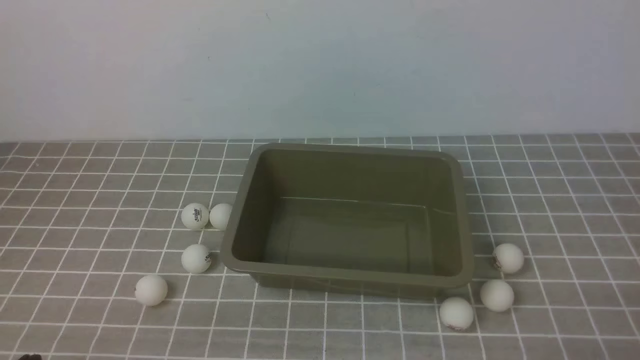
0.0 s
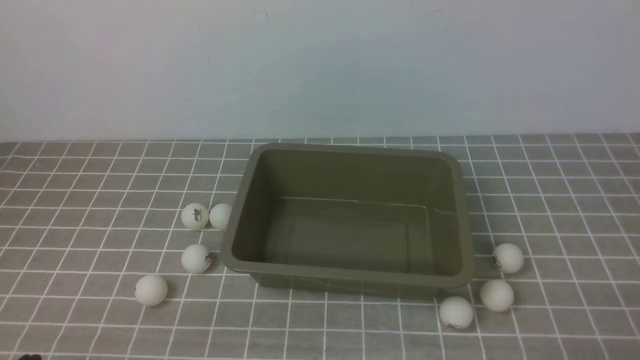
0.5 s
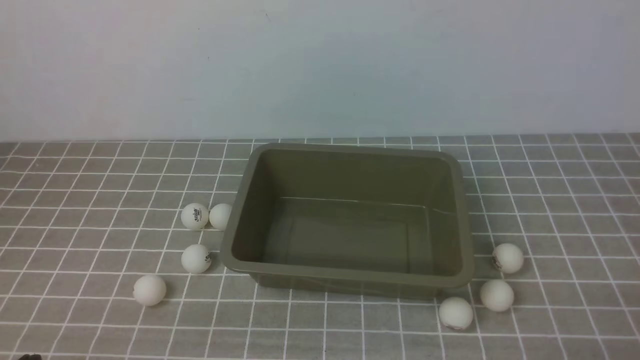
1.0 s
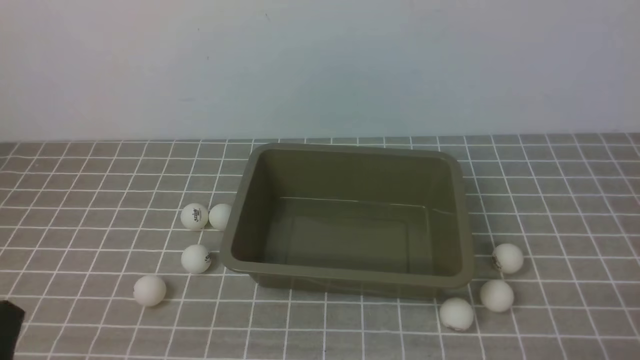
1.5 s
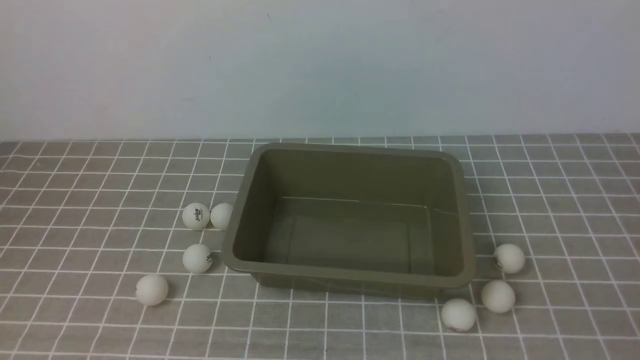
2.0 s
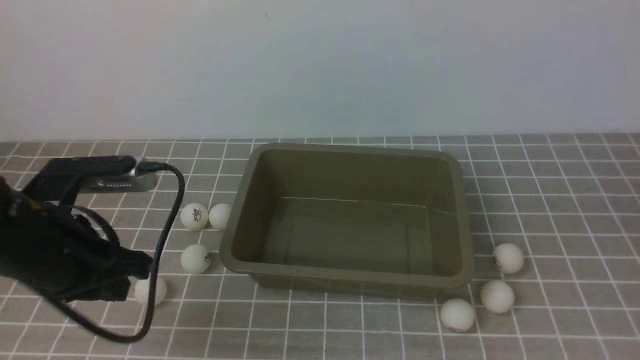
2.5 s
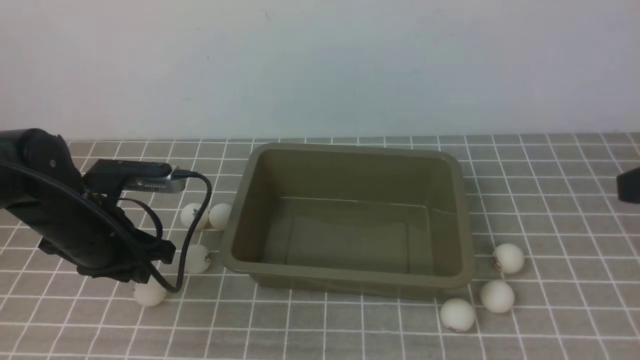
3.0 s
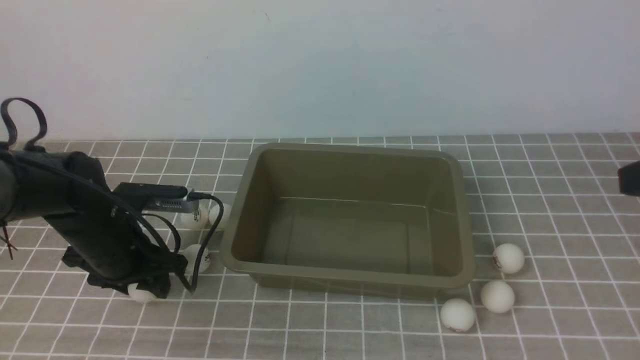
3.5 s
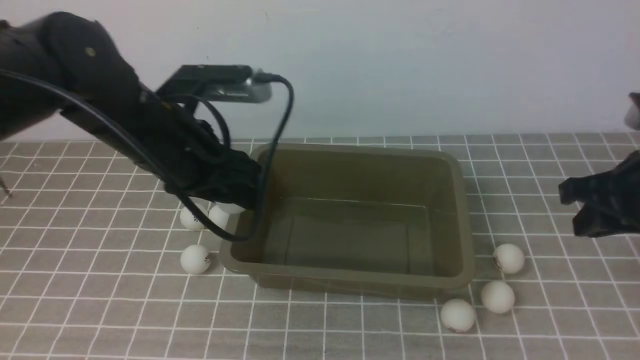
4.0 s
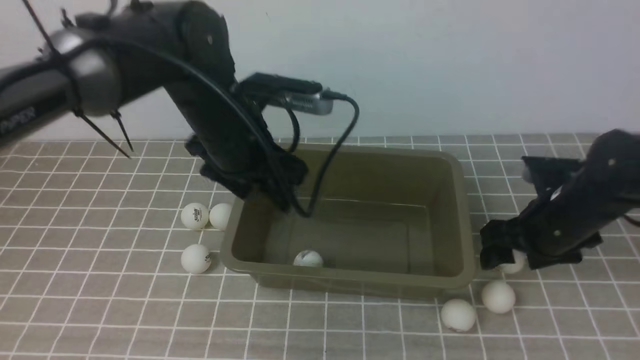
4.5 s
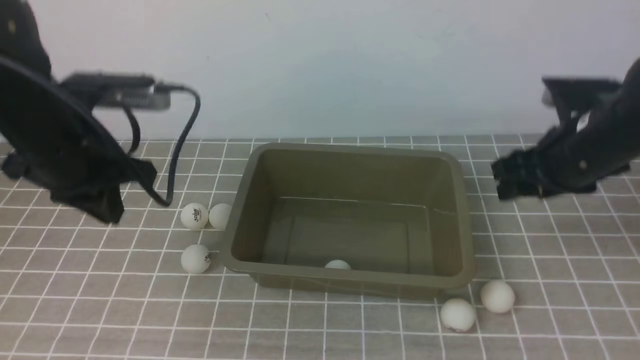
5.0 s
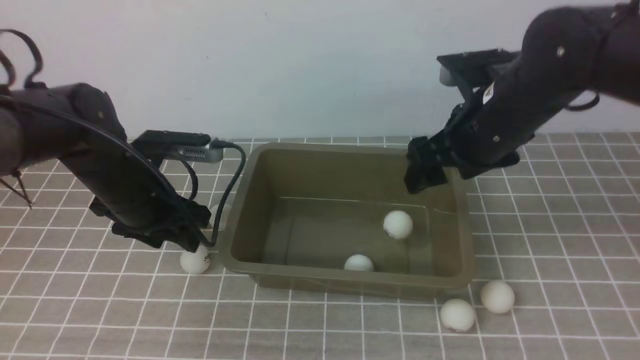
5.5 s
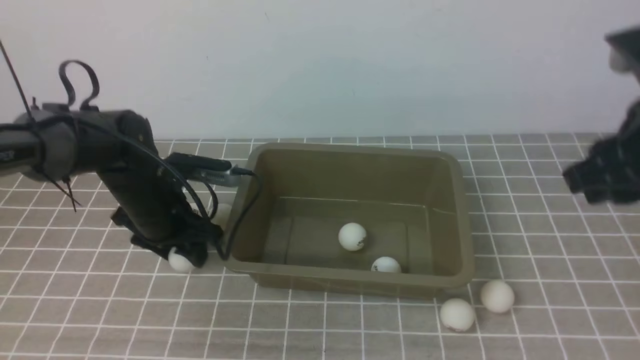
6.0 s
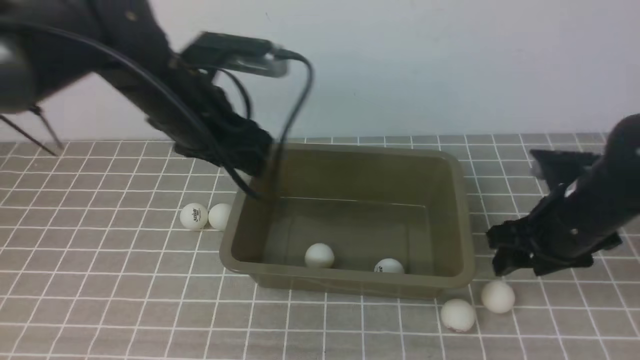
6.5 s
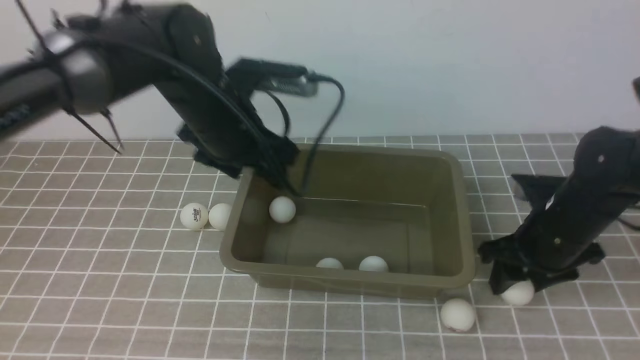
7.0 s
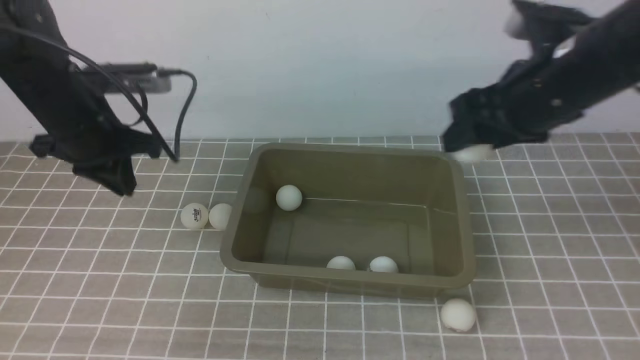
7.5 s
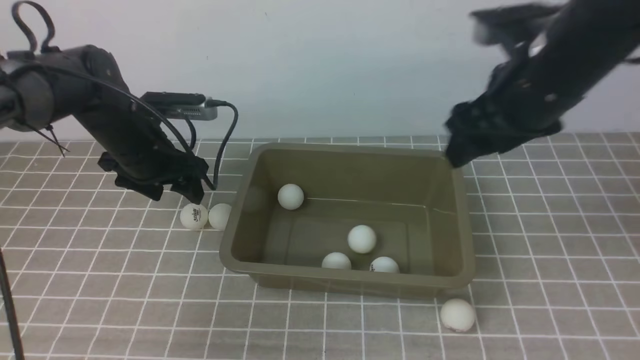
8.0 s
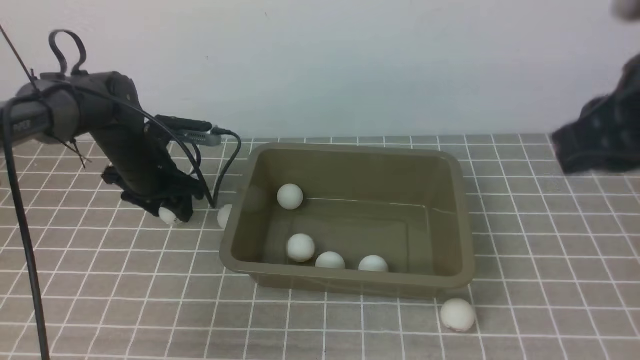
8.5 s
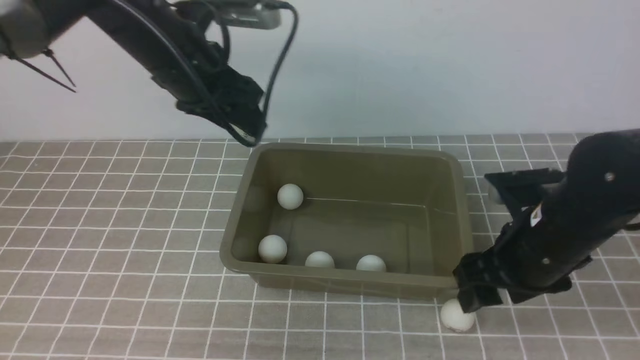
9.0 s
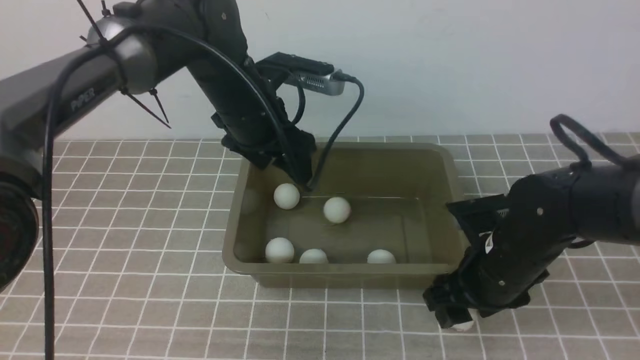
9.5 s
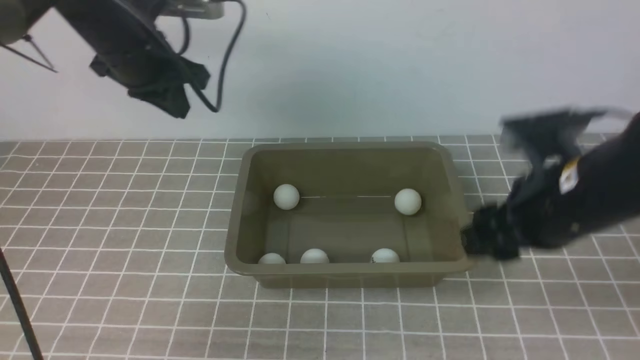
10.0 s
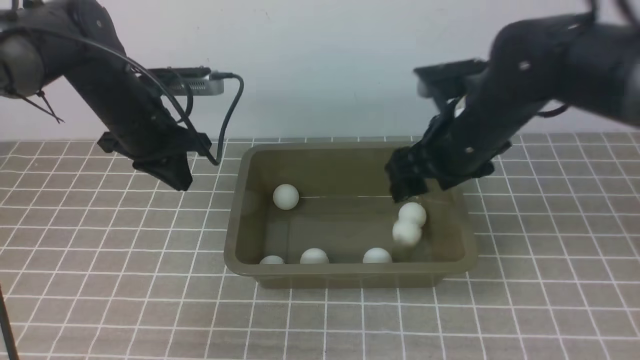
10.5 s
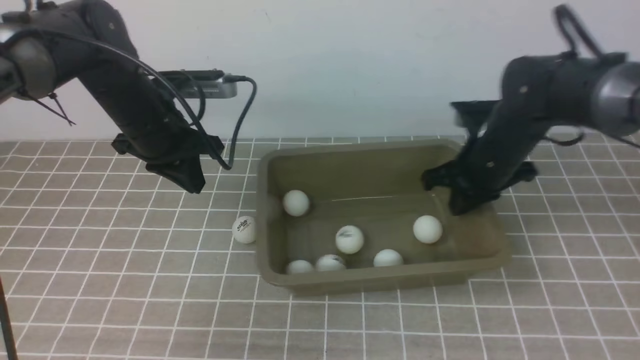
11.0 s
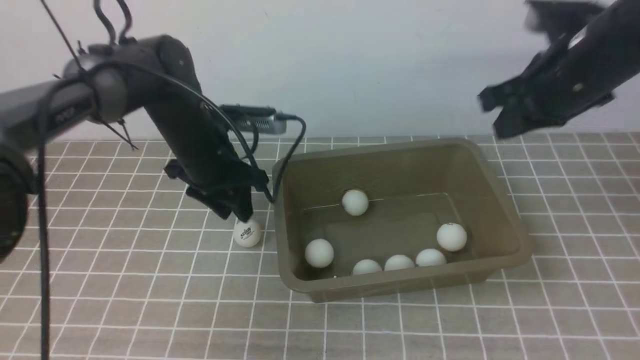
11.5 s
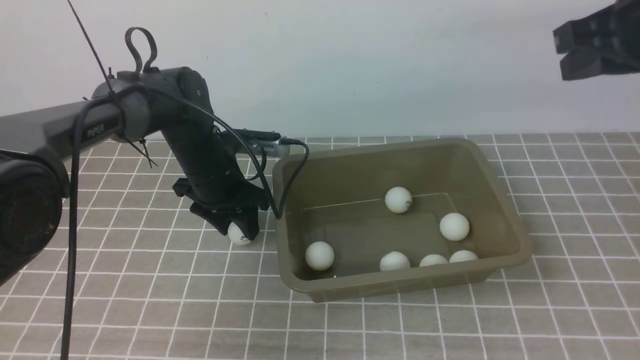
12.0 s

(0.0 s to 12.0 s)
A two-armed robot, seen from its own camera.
Step, 0.0 s - 3.5 s: use the left arm to clamp the table tennis ball closest to it.
Step, 5.0 s - 5.5 s: use the right arm to put the table tennis ball into the box.
Step, 8.0 s - 8.5 s: use the left arm to clamp the table tennis ball closest to it.
Step, 10.0 s - 10.5 s: use the right arm to put the table tennis ball into the box.
2.0 s - 4.0 s: The left gripper shifts approximately 25 cm forward and to the right, and opens up. Meanwhile the right gripper shifts approximately 20 cm forward.
4.0 s - 6.0 s: The right gripper reaches some 10 cm downward, then returns, and opens, then closes once more. Meanwhile the left gripper travels downward and to the left by some 10 cm, and closes and opens again.
6.0 s - 8.0 s: The right gripper moves to the left, roughly 5 cm, and reaches roughly 15 cm downward, then returns. The left gripper heads forward, covering approximately 5 cm, goes to the right and returns, approximately 5 cm each way, and closes, then reopens.
8.0 s - 10.0 s: The right gripper is displaced downward by roughly 10 cm, and closes, then reopens. Meanwhile the left gripper heads upward, covering roughly 10 cm, moves about 15 cm to the right and comes back, and closes.
10.0 s - 12.0 s: The left gripper travels downward by about 15 cm, and opens. Meanwhile the right gripper is displaced upward and to the right by approximately 15 cm, and closes.

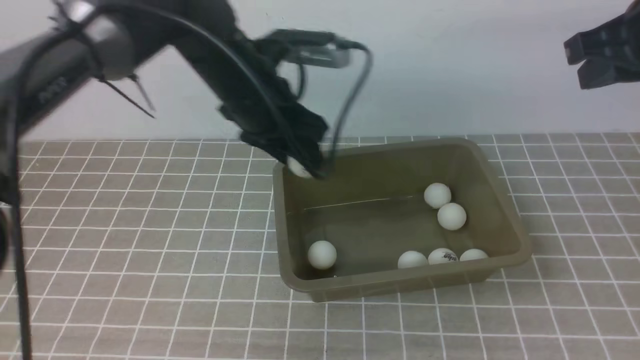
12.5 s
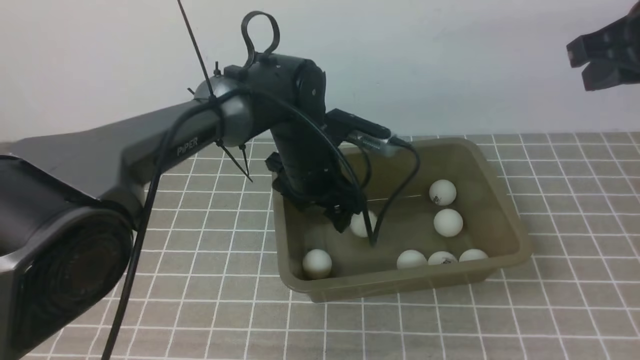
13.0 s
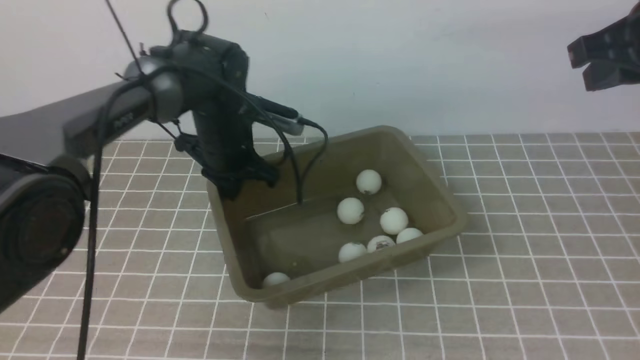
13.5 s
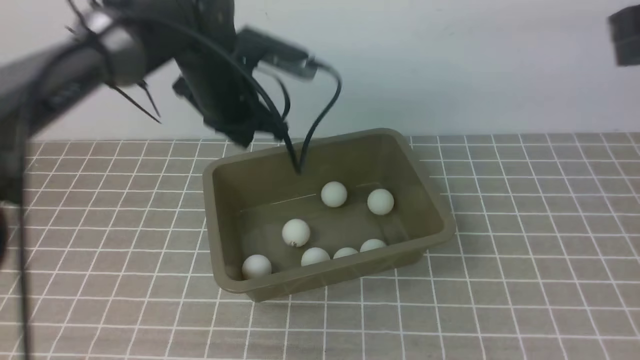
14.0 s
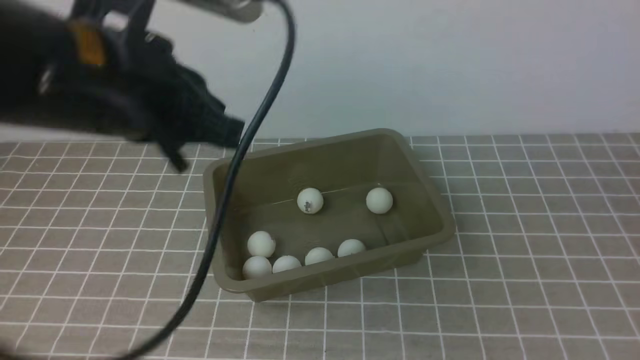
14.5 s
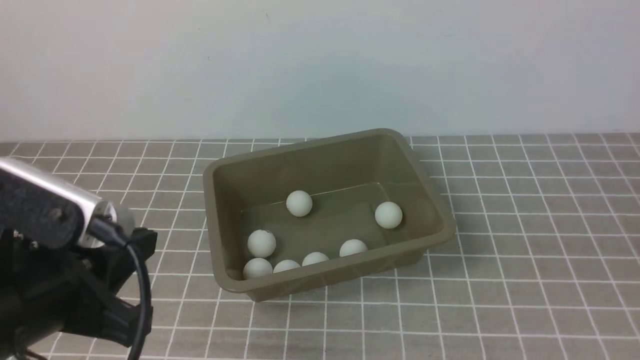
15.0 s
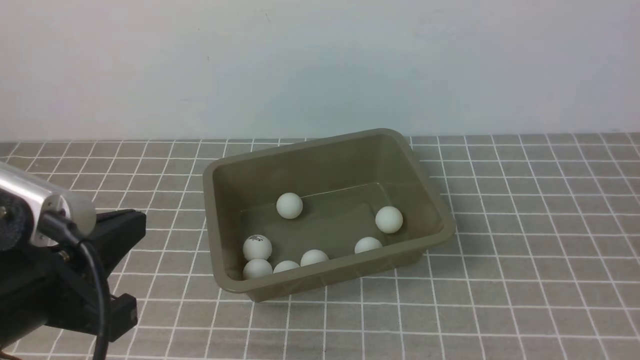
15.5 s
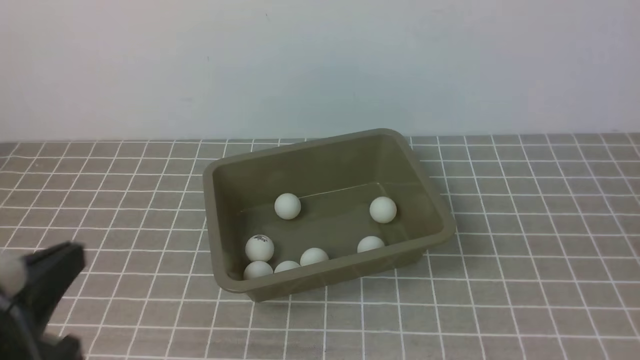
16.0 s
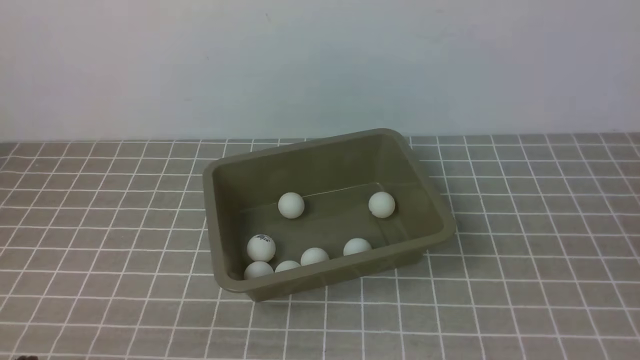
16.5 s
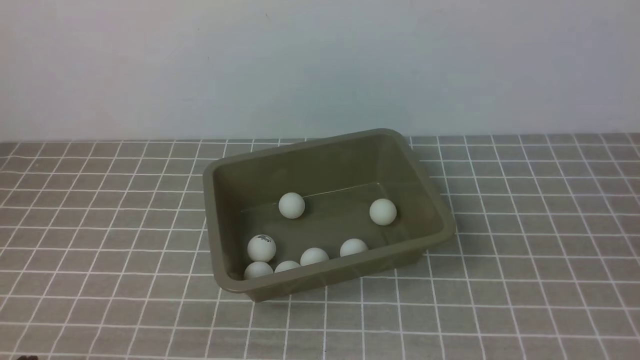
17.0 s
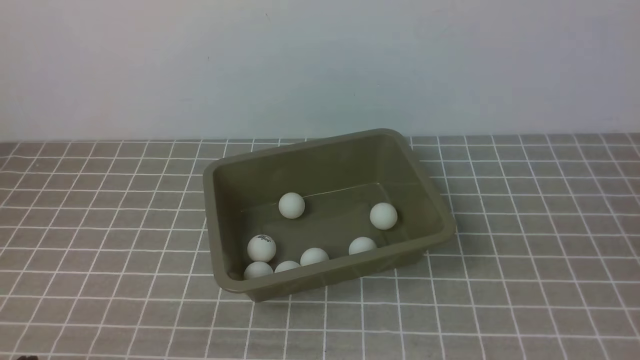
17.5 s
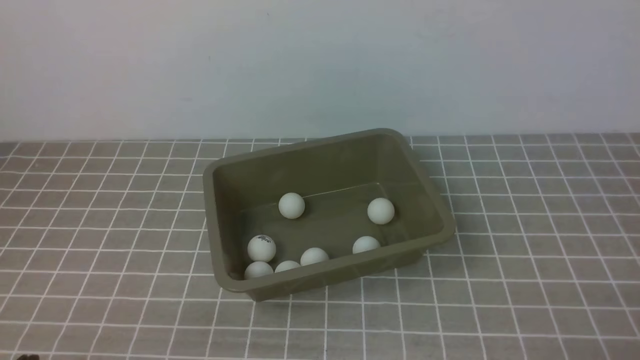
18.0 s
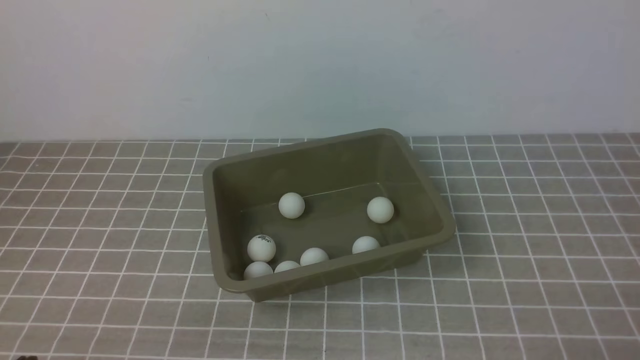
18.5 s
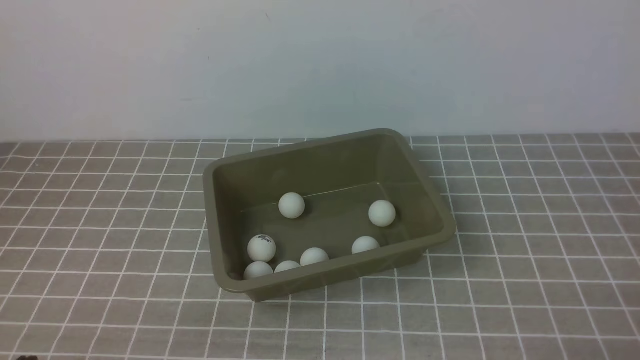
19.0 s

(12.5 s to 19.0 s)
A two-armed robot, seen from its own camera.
Step, 12.5 s - 13.0 s: use the left arm to put the table tennis ball into the box.
12.5 s - 14.5 s: The left gripper goes approximately 20 cm backward, upward and to the left, and closes. Meanwhile the right gripper travels backward by about 20 cm.
14.5 s - 17.0 s: The right gripper travels downward by about 5 cm. Meanwhile the left gripper goes some 30 cm downward, backward and to the left.
